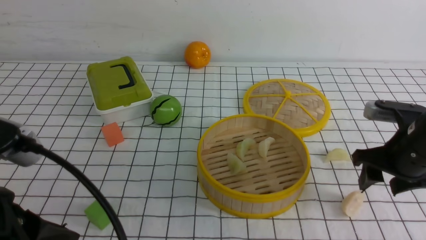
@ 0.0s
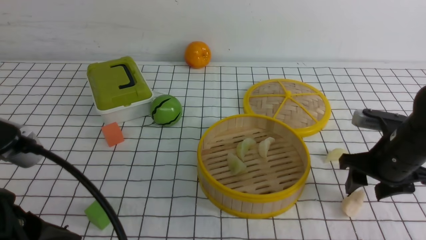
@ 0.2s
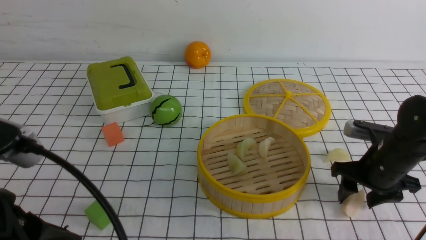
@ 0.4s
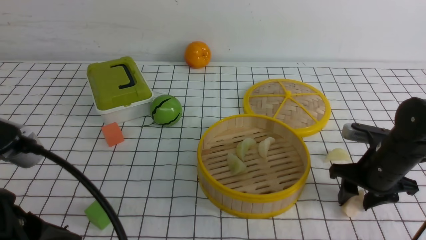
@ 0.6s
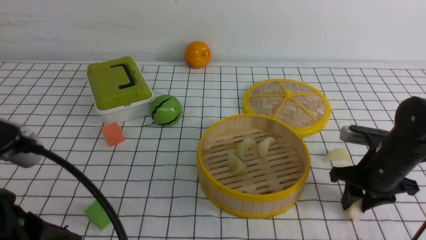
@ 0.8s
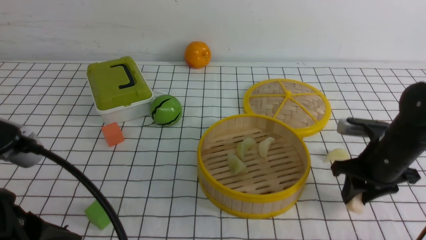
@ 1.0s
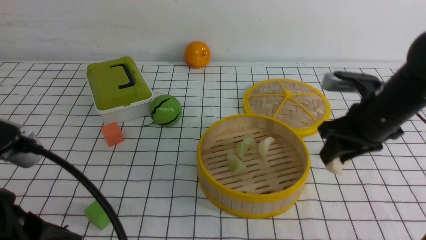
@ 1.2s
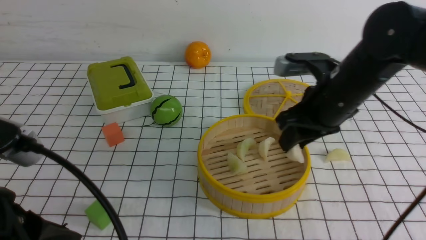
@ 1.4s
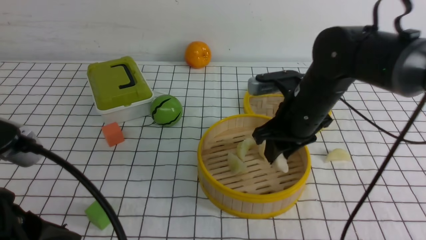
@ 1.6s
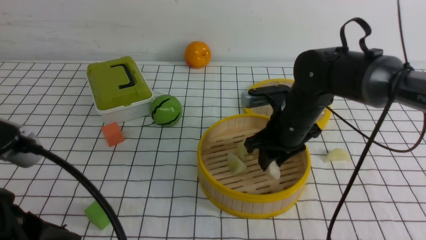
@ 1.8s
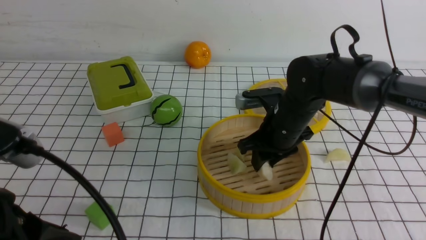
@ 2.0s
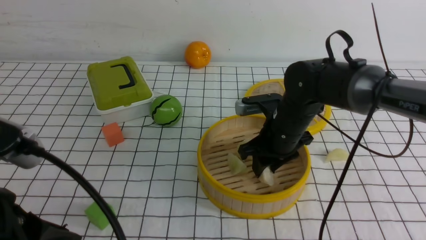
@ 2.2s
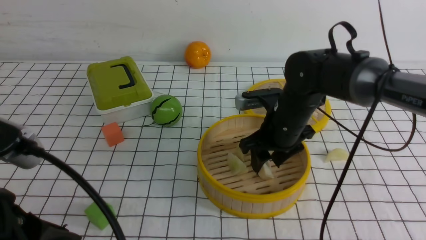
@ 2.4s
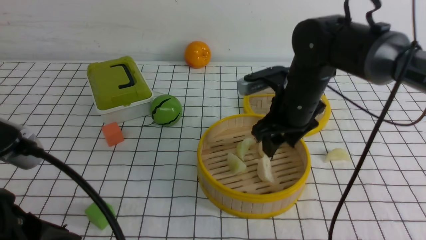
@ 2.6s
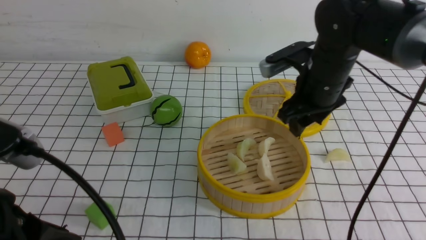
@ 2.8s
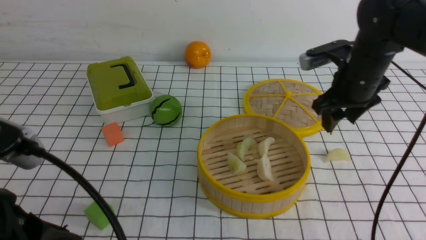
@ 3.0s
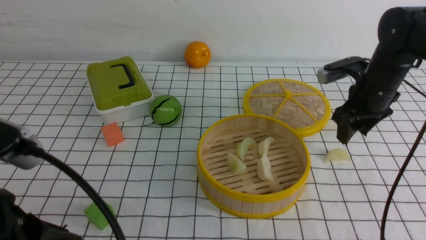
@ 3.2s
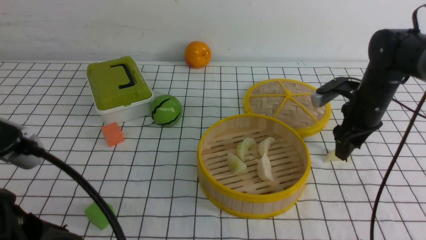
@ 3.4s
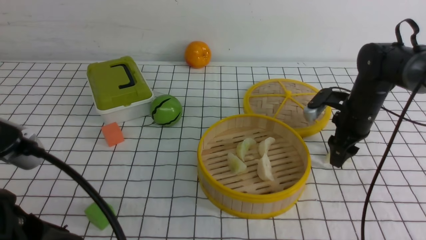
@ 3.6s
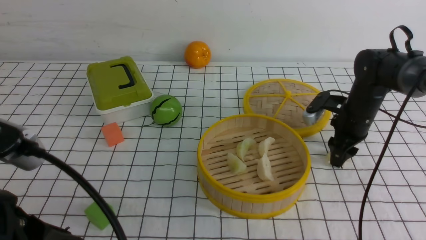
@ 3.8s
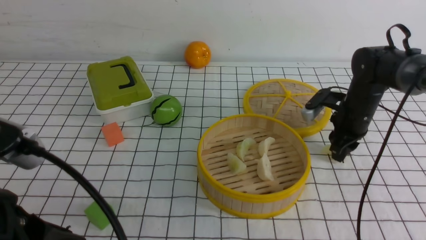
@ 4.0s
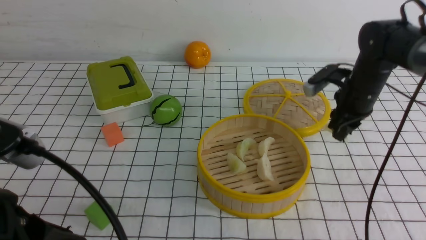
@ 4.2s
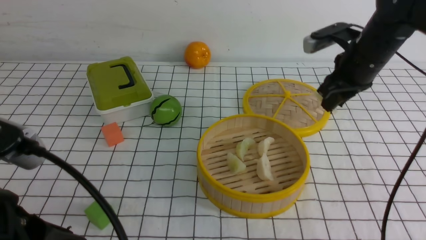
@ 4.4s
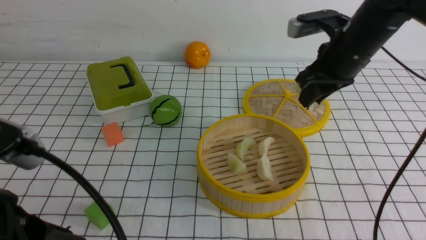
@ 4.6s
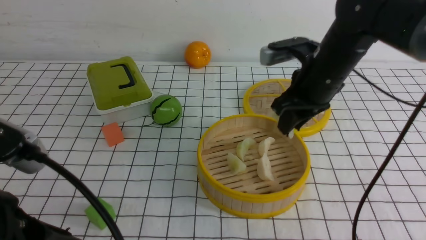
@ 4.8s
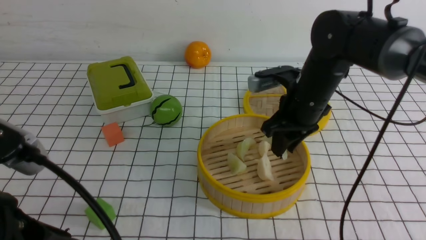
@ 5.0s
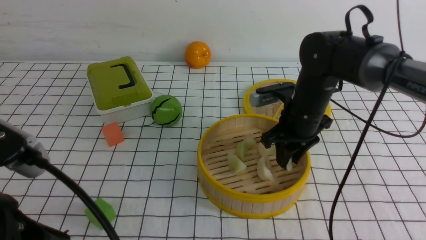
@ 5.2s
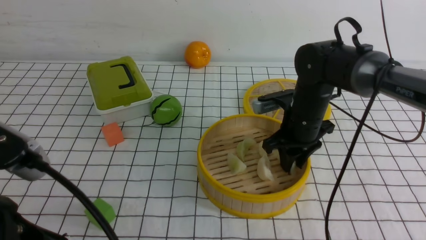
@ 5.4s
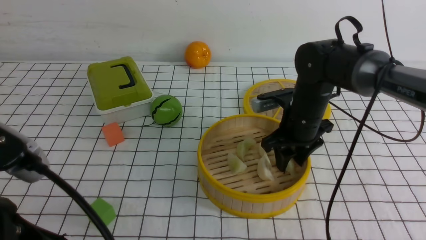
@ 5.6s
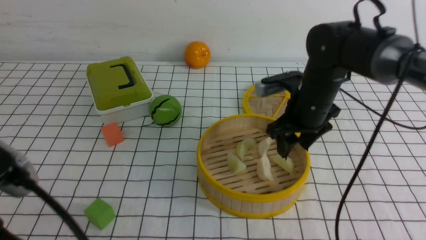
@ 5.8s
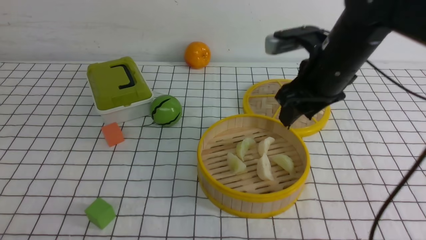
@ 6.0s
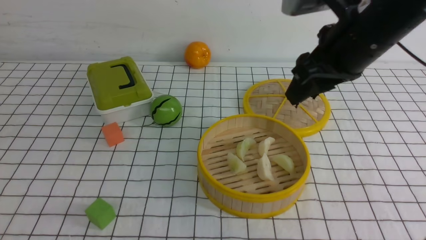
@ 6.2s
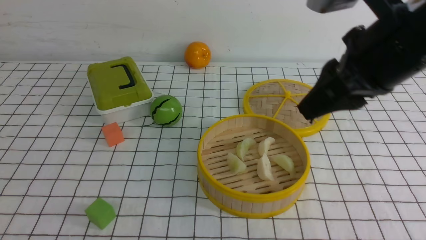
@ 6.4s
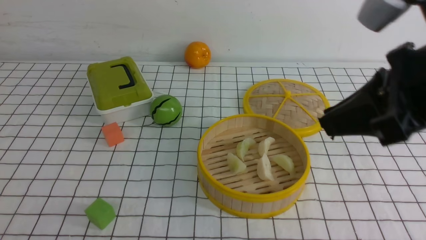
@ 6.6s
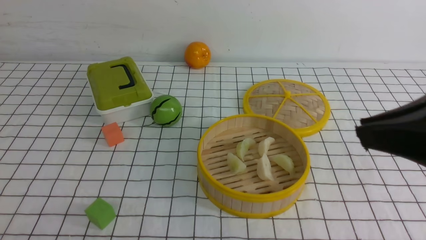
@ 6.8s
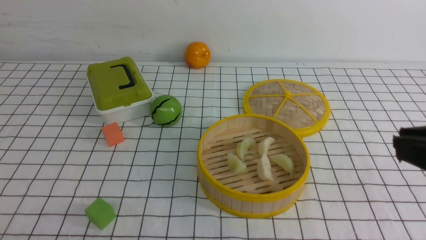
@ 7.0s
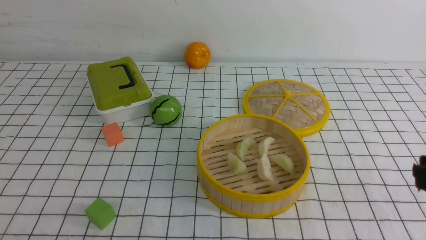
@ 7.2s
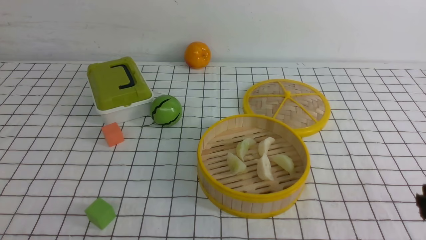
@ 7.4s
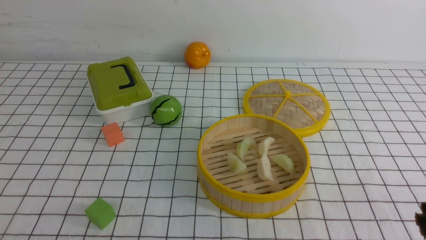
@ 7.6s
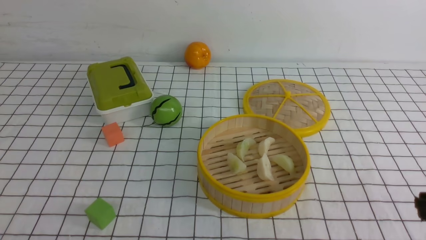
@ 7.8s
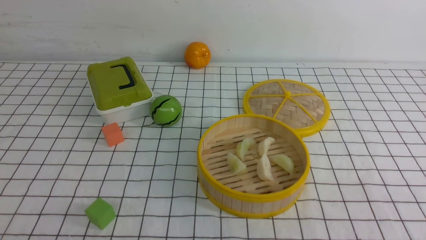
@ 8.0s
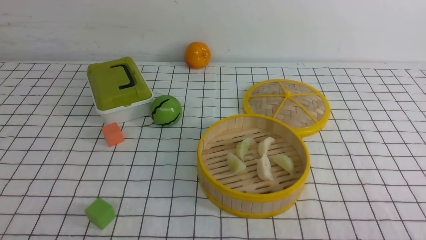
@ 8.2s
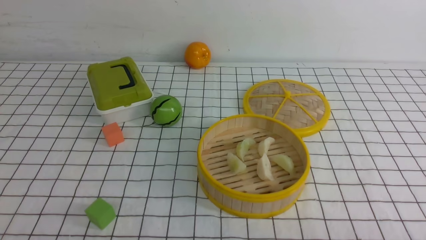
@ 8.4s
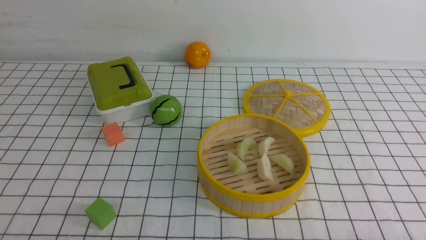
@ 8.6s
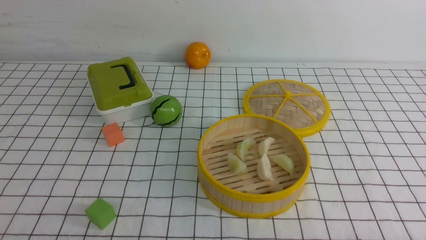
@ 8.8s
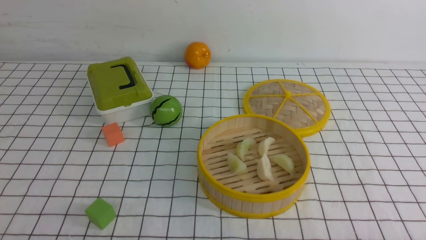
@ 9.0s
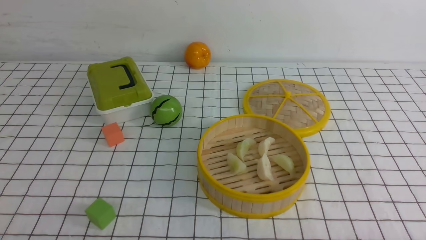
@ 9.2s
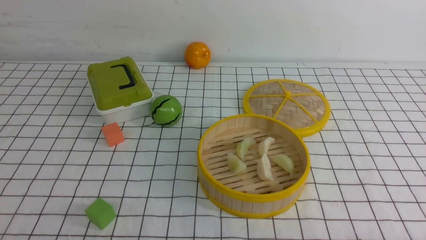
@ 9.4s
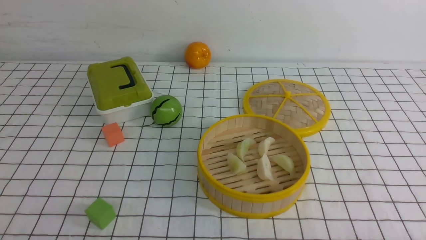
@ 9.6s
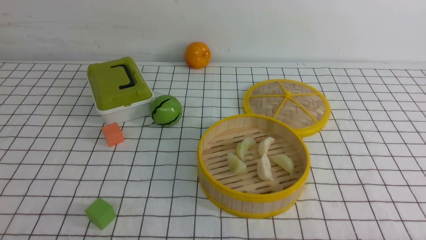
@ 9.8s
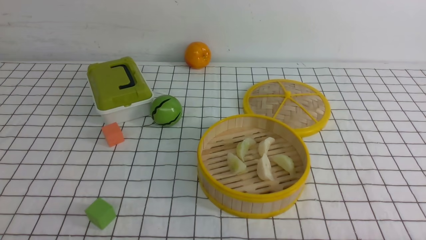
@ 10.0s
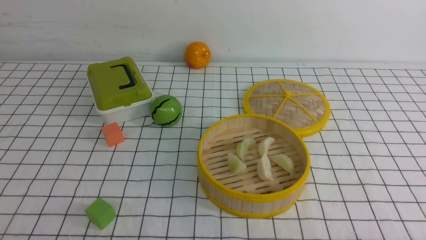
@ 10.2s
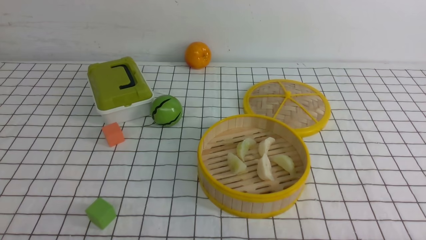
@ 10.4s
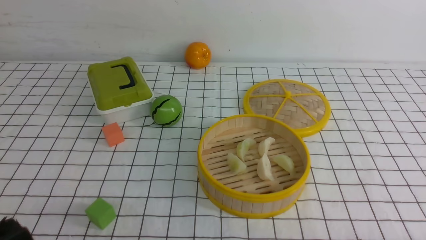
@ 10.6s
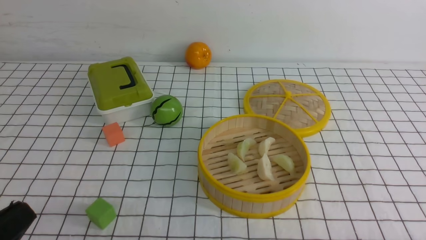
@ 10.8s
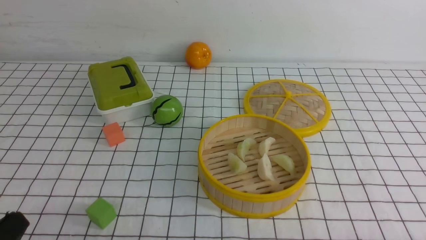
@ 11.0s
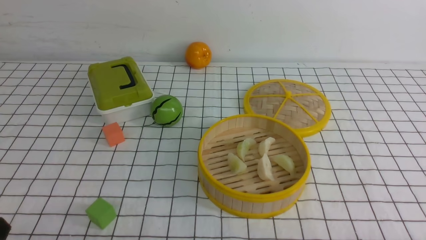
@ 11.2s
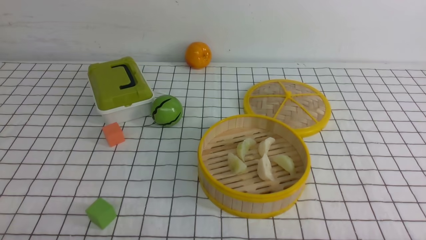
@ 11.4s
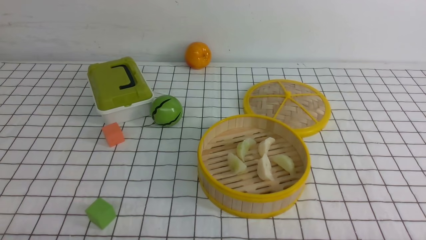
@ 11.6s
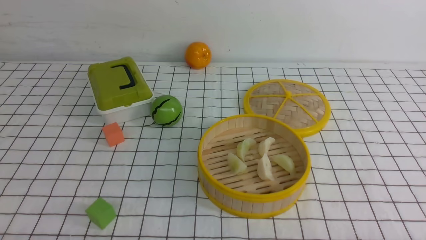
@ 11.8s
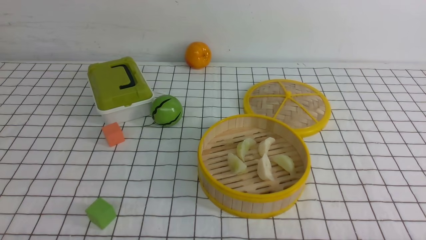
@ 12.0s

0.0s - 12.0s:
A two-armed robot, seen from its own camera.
Task of the whole recording: put the dumplings into the steamer on the table with the white tablecloth.
Step, 0.0s - 1.2s: use the right arm to grab a dumpling.
Step, 1.6s - 2.8s: use the right arm to put the dumpling into the steamer.
Step, 3.0s - 4.4s: use the right arm to grab a dumpling.
Step, 4.6s - 6.0s: use the right arm to put the dumpling into the steamer.
0.0s - 1.6s: The right gripper moves to the left and forward, roughly 15 cm, and closes its fingers.
1.6s - 3.0s: The right gripper goes some 10 cm to the right, and opens up.
3.0s - 4.4s: The right gripper goes downward and returns, about 10 cm each way, and closes up.
4.4s - 6.0s: The left gripper moves some 5 cm, while the right gripper travels backward and to the left by approximately 10 cm, reaches some 10 cm downward, then returns, and opens its fingers.
6.0s - 7.6s: The left gripper moves approximately 5 cm. Meanwhile the right gripper heads backward, covering some 30 cm, and closes its fingers.

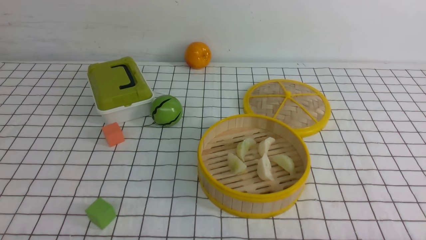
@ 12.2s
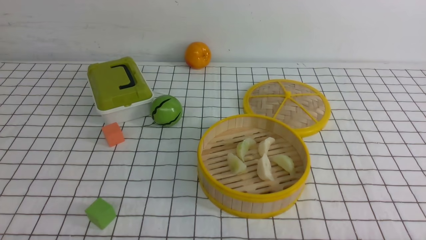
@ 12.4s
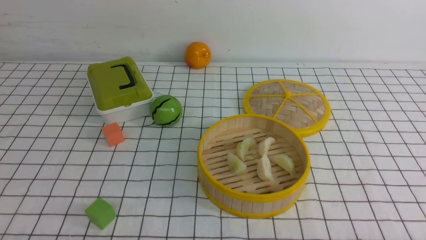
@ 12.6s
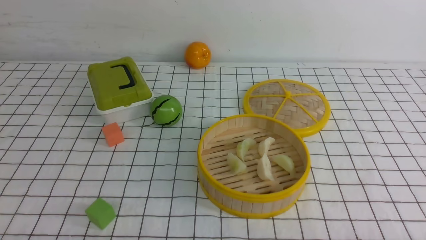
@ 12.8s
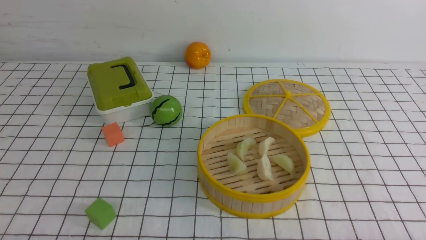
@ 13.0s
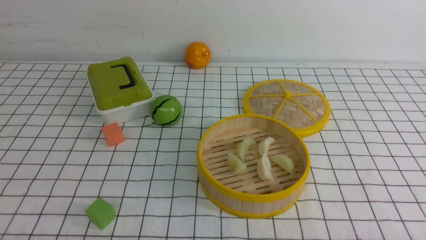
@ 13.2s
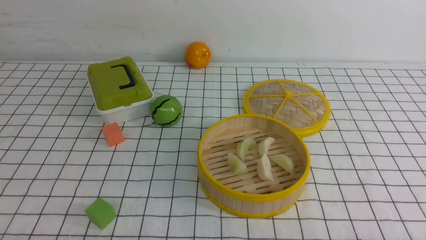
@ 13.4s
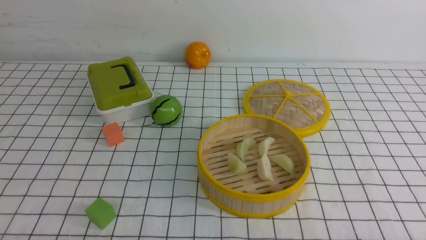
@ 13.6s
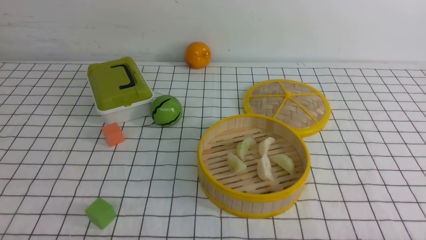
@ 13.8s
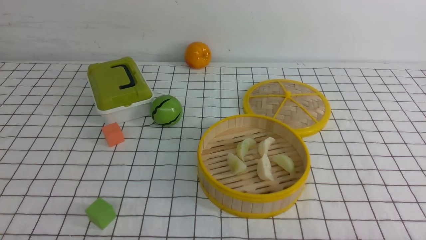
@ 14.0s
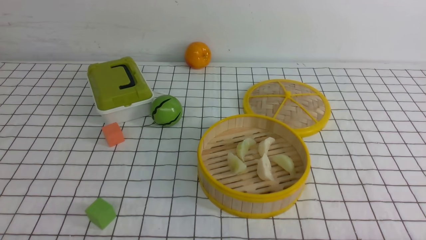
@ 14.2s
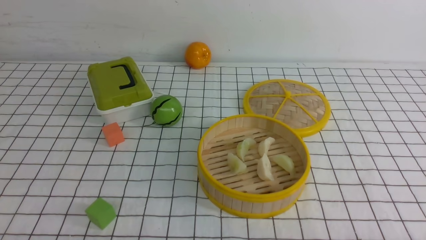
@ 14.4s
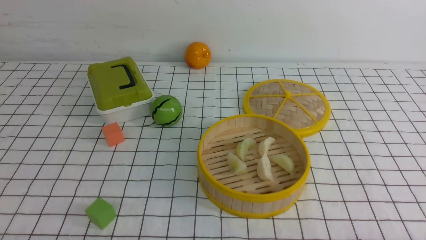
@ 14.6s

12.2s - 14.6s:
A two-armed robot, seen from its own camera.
Task of the whole recording: put the dumplings into the steamer on the table with the white tablecloth.
12.2s - 14.6s: Neither gripper changes place.

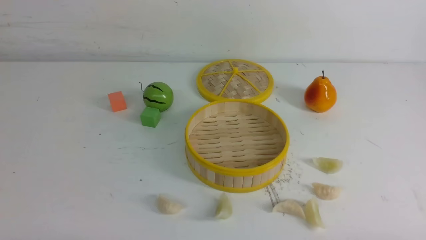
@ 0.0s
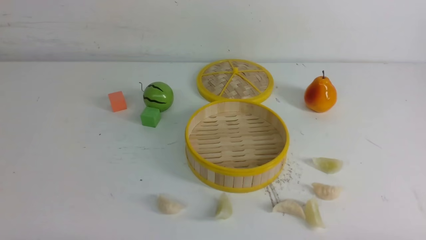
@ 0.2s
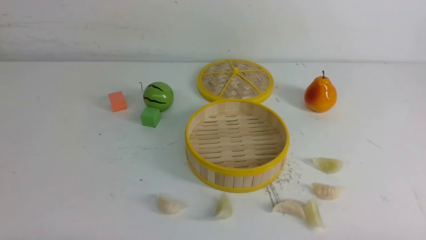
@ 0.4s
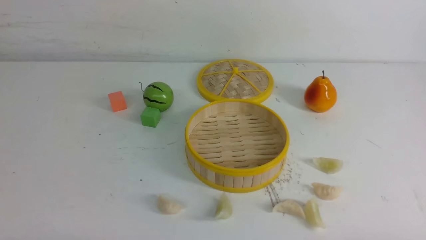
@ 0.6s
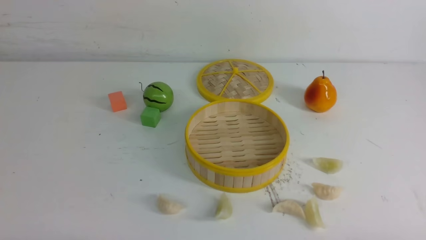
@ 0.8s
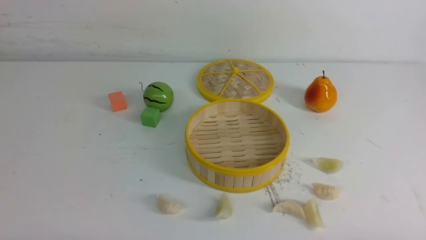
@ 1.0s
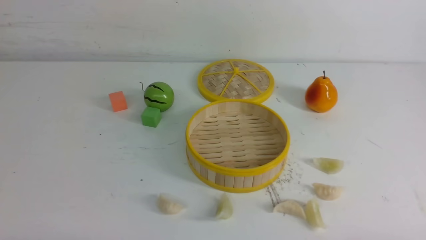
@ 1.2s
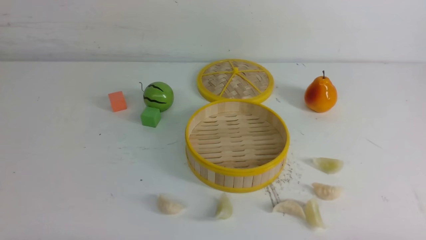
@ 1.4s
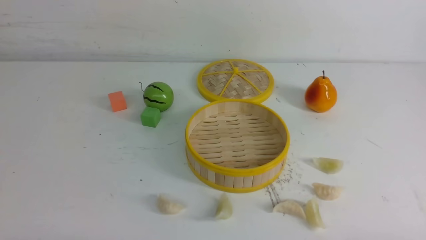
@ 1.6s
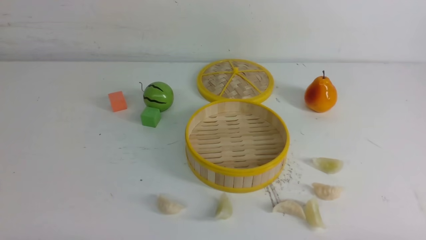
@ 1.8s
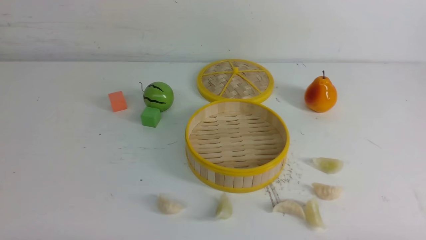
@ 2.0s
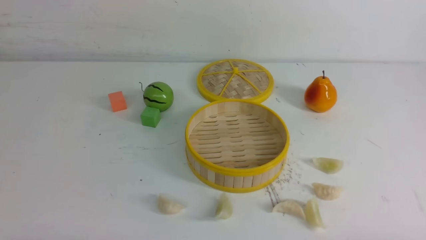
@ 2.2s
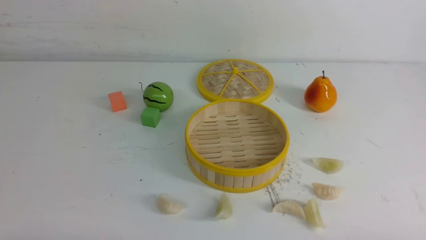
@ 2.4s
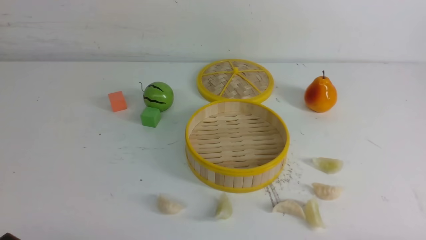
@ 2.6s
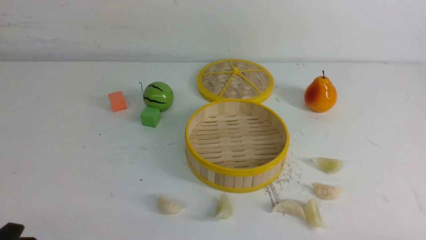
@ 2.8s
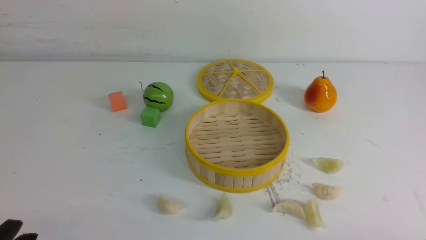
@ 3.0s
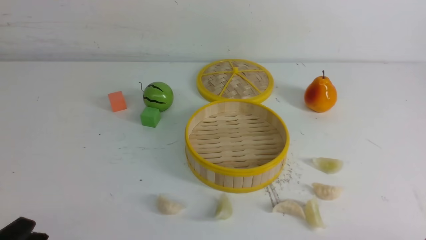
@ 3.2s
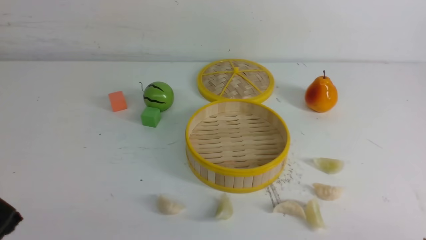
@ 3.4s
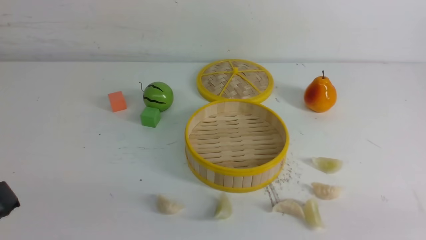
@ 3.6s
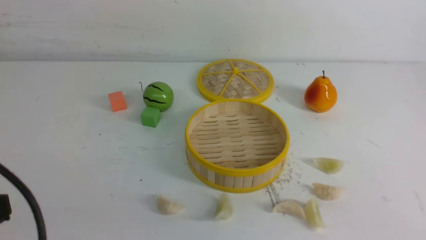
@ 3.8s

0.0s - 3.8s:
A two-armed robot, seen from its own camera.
Task of the whole recording: put the dumplings into the steamer on the white table.
0.0s - 1.2s: Both grippers stay about where they are.
2.6s - 3.8s: The left gripper shifts approximately 15 cm upward, and closes its fingers.
